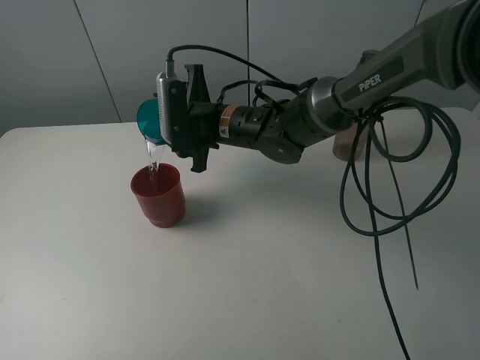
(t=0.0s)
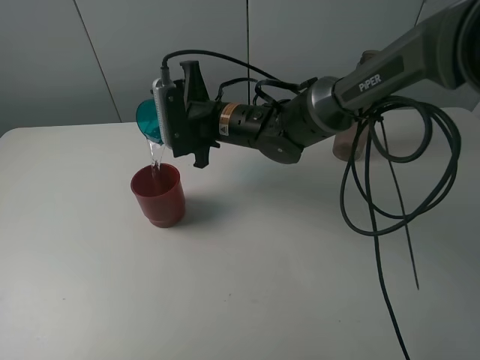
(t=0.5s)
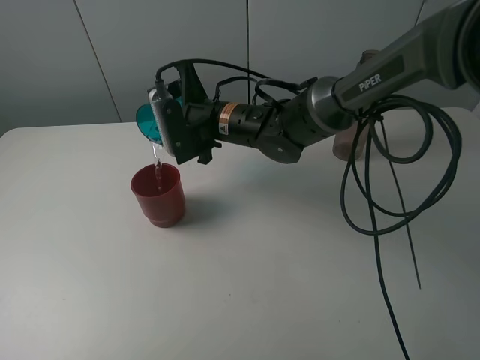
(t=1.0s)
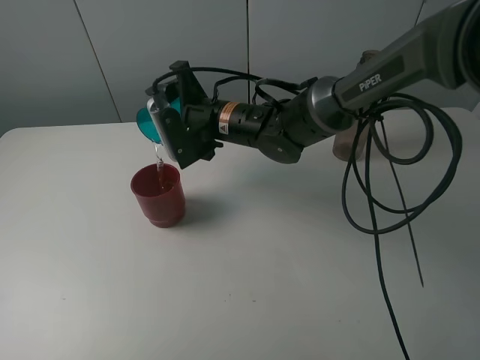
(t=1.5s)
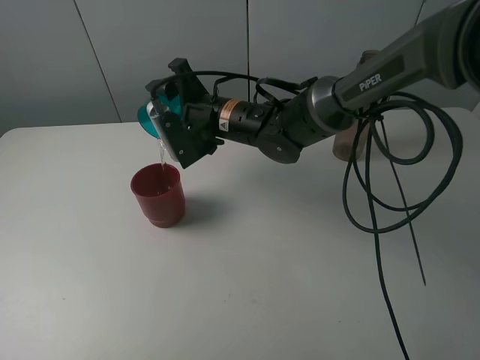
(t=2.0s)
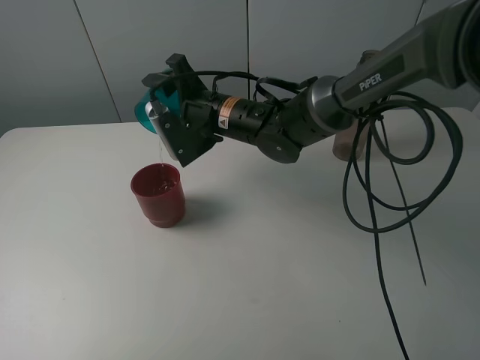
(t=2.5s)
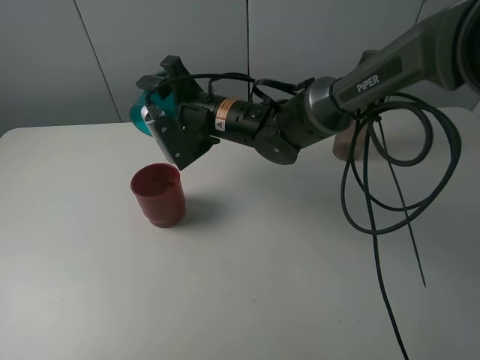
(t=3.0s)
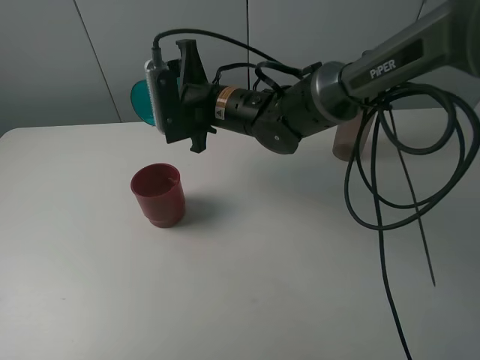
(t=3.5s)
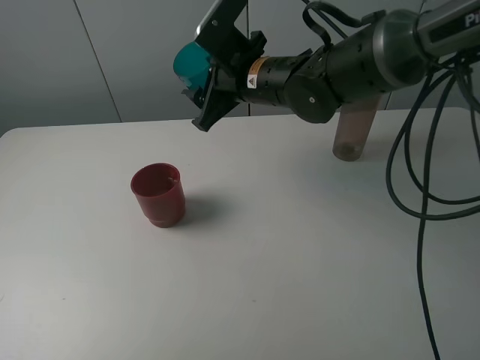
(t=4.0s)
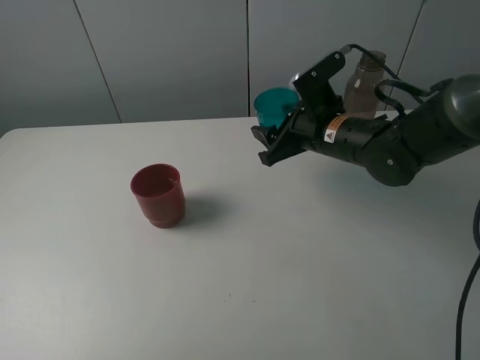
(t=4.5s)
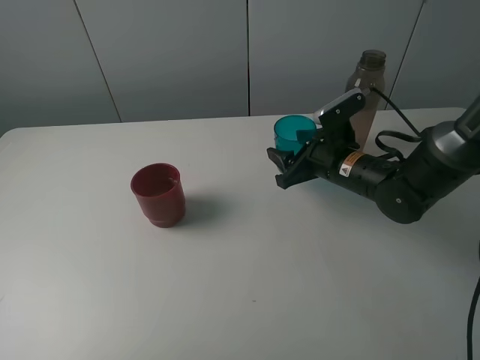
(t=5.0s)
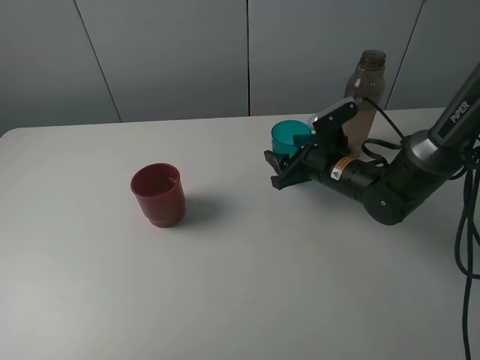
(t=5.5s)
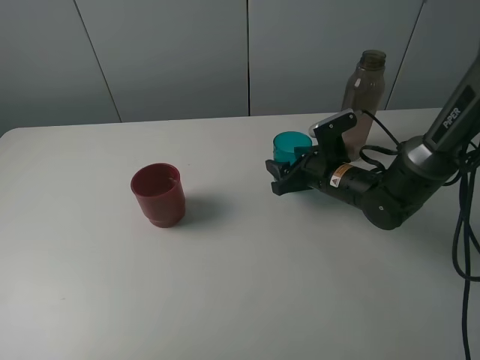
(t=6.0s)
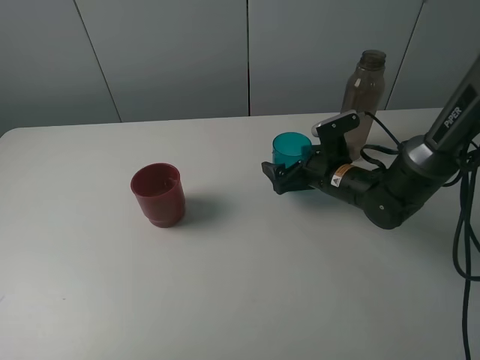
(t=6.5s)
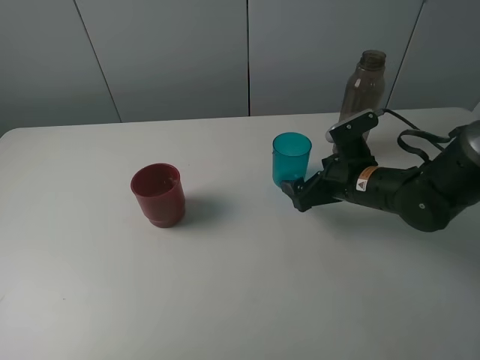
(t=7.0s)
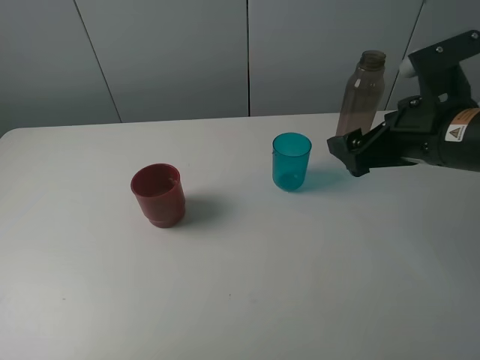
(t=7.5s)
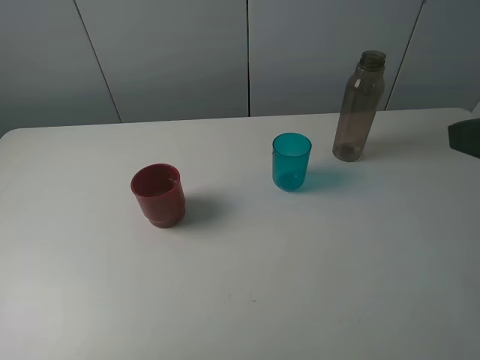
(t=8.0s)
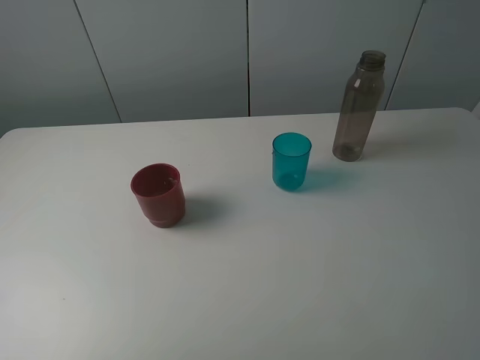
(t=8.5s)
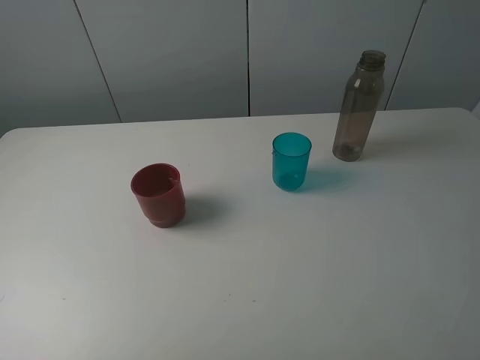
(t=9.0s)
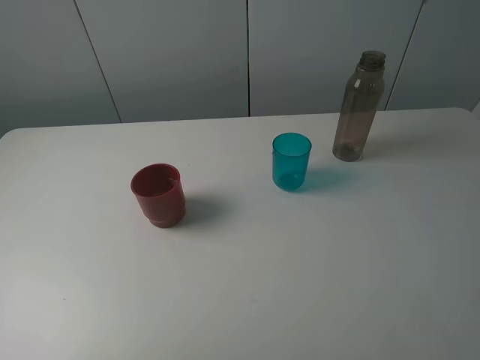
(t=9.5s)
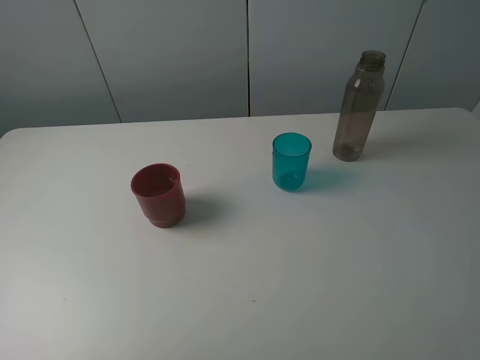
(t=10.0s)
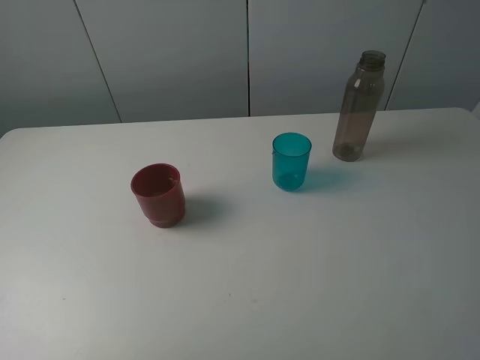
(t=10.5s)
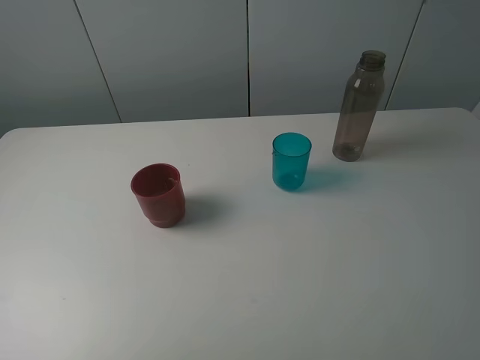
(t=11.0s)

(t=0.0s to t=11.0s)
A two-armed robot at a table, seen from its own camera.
Task of the whole recording: pick up the bottle and pour water into the cup, then pick up the cup containing water and pour it into another cup.
Step, t=0.0s - t=3.0s: Pour water from blue cup to red cup with the right gripper.
Step, t=3.5s - t=6.5s: Place the blue cup with the right gripper.
t=3.5s - t=5.5s: The right gripper moves to the right and downward, some 20 cm.
t=5.5s - t=7.5s: The right gripper goes roughly 20 cm upward and backward, and opens up.
t=7.5s - t=9.0s: The right gripper moves backward, roughly 20 cm.
